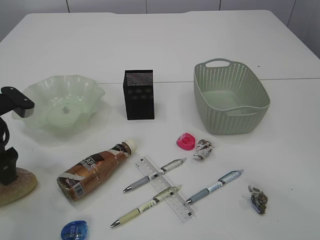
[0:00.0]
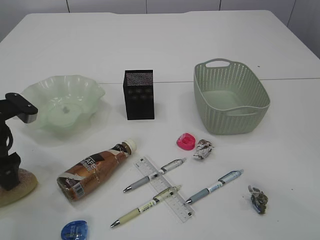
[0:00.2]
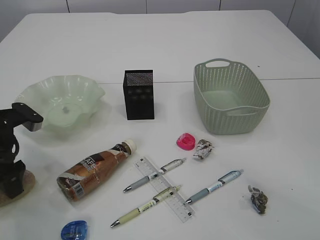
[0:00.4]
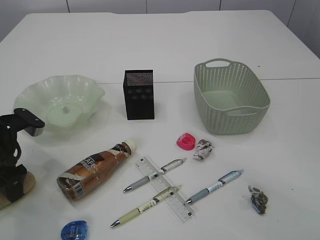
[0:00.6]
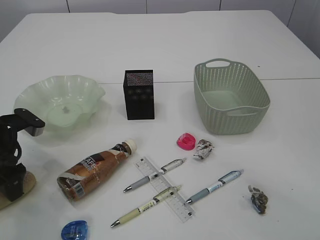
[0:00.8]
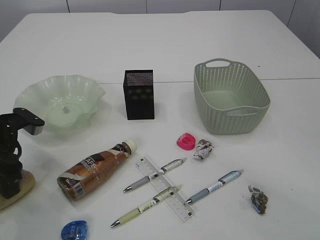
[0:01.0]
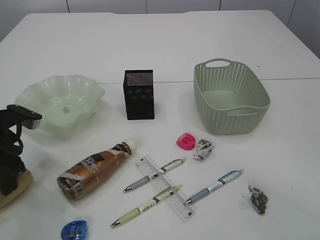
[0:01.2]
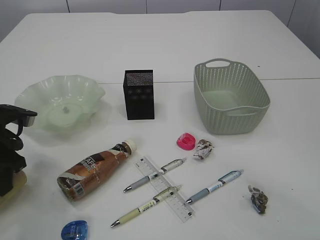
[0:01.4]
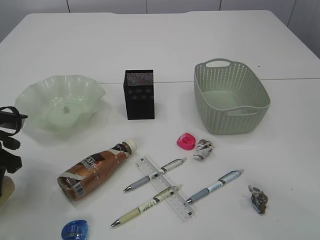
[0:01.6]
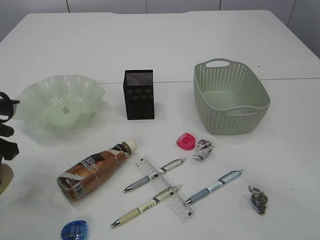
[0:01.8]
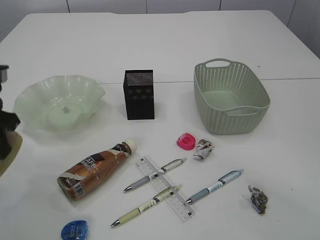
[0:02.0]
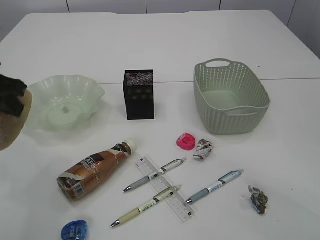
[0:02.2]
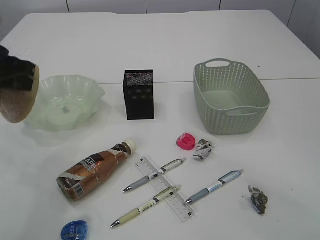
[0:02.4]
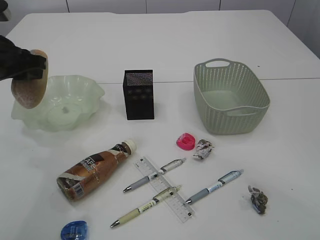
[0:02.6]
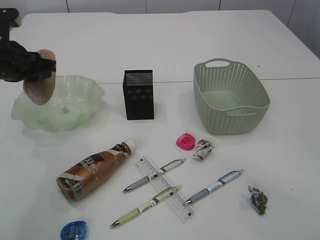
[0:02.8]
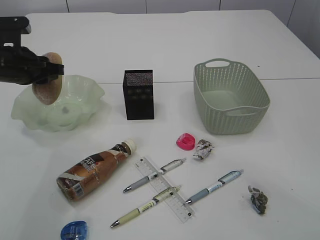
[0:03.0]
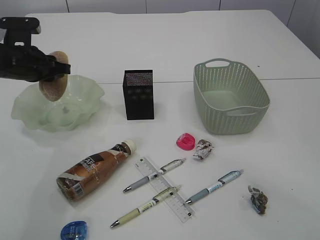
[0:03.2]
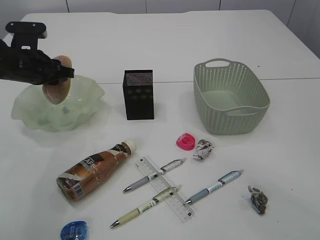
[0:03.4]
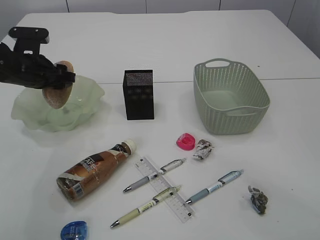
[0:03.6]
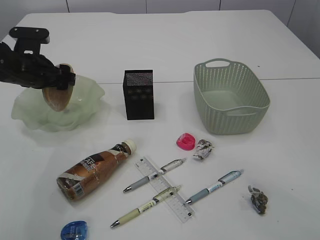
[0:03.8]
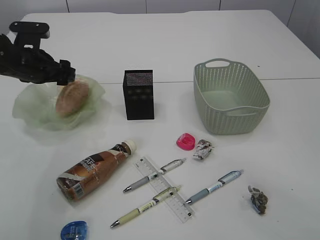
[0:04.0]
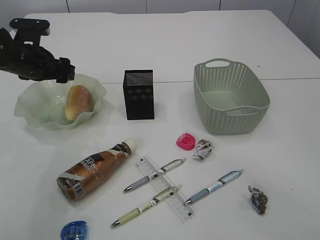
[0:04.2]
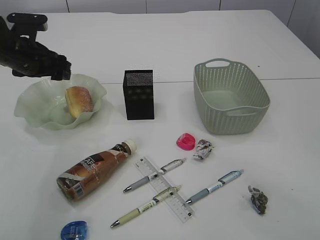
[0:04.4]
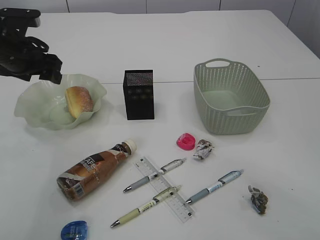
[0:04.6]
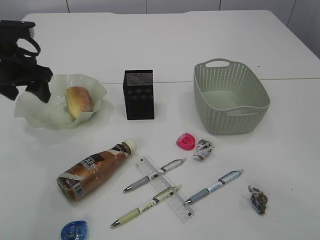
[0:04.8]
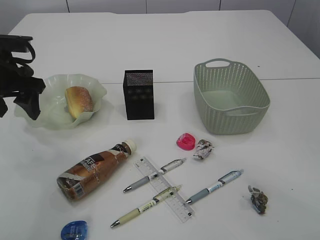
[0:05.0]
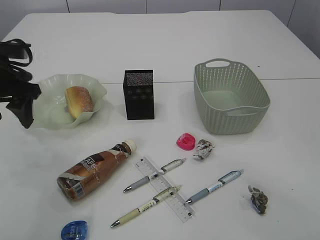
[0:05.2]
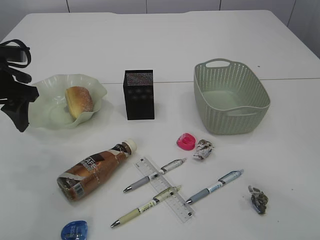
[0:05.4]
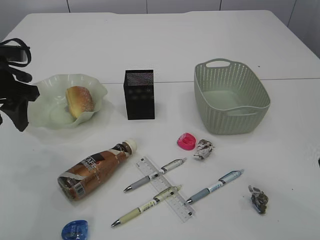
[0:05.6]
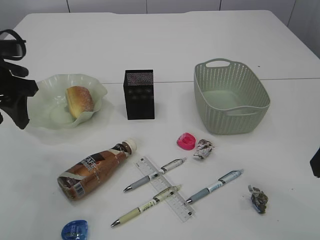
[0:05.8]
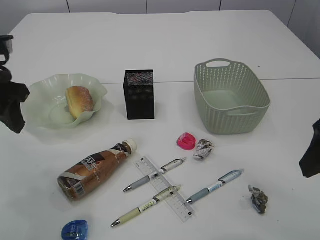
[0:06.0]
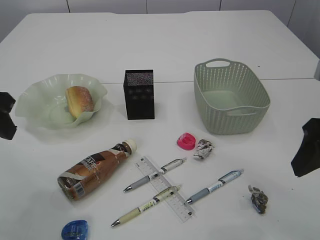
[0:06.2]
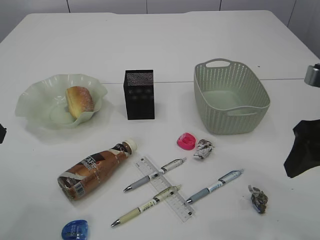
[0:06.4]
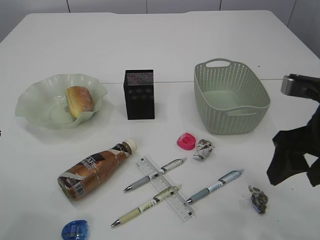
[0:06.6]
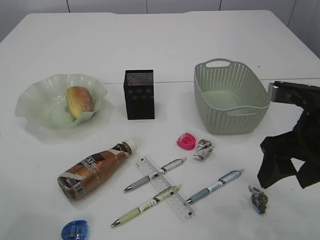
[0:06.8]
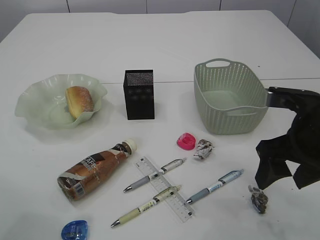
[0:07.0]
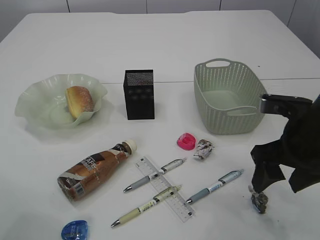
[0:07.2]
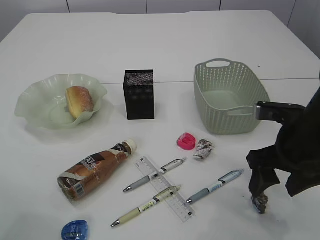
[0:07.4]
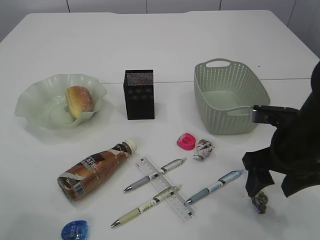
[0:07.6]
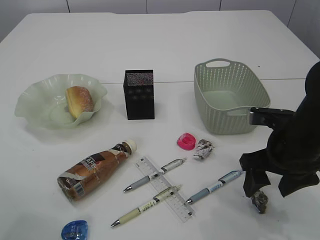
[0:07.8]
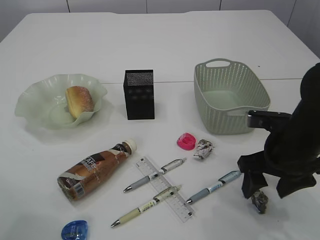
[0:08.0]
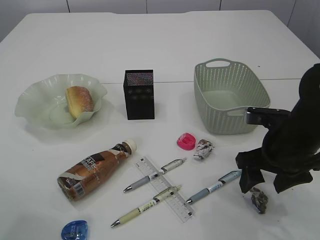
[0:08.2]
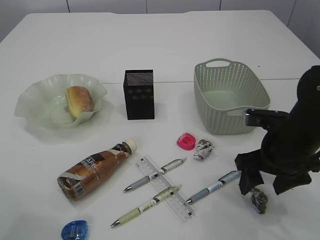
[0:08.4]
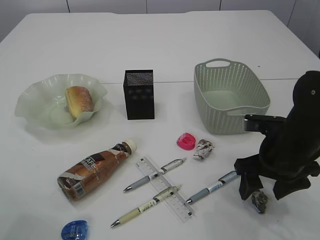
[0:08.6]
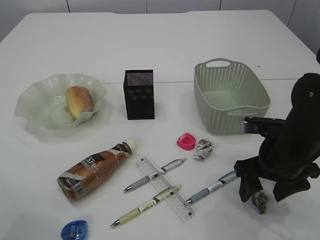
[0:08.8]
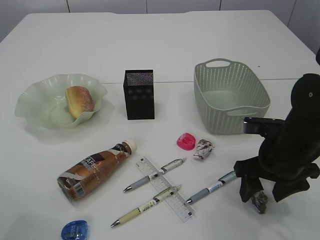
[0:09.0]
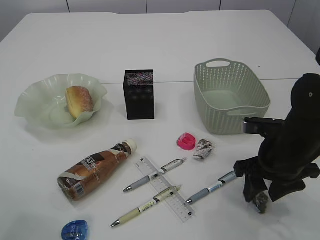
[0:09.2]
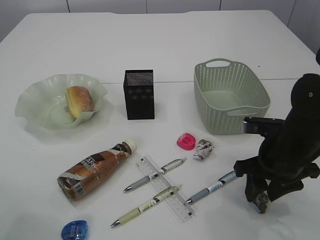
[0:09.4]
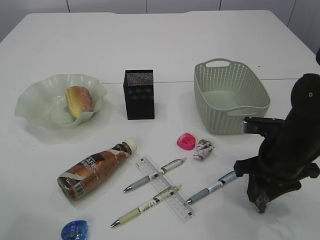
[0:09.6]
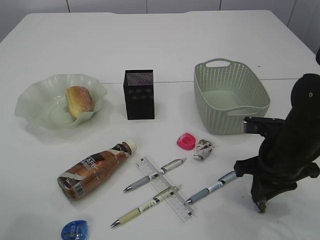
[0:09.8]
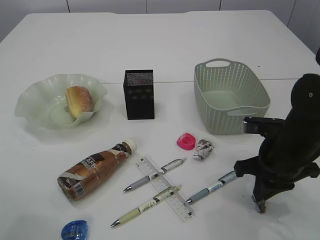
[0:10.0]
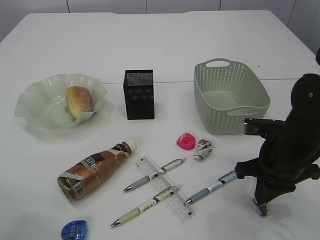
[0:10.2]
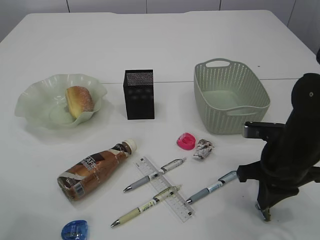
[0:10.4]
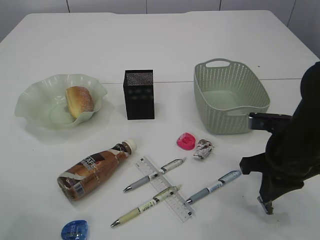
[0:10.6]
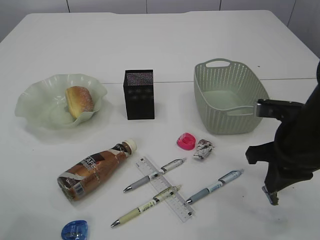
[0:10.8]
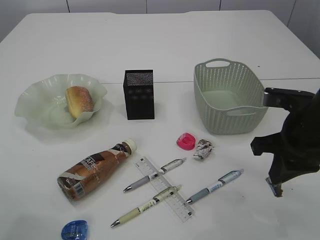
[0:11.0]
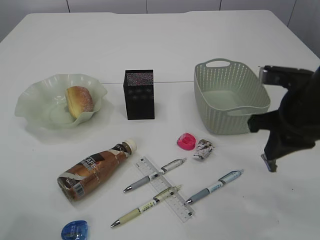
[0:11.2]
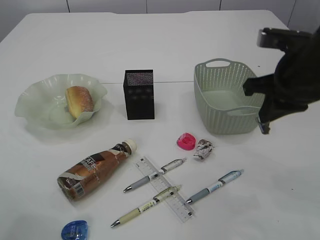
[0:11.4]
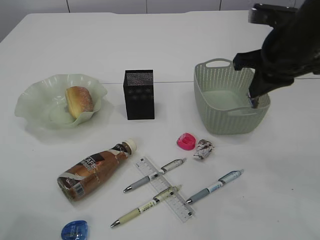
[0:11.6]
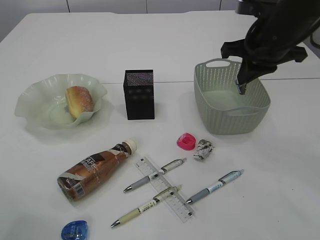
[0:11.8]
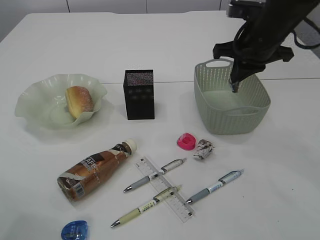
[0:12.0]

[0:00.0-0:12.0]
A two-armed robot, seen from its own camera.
Step, 0:02.2 to 0:05.4: place the bread in the plate.
Step, 0:05.6 to 0:11.2: Pick up the waste paper.
0:00.0 to 0:01.6: The left gripper closes up.
0:01.6 to 0:03.0: The left gripper goes about 10 cm forward.
0:03.0 to 0:04.4: The left gripper opens its fingers.
0:04.4 to 0:06.0: The left gripper heads backward and upward, covering roughly 15 cm.
0:06.0 to 0:07.6: The right gripper goes approximately 15 cm downward and forward; the left gripper goes roughly 10 cm backward.
0:07.6 to 0:09.0: There are only small adjustments of the grippers.
0:09.0 to 0:10.4: The right gripper closes.
0:10.4 to 0:12.0: The right gripper is displaced upward and forward by some 20 cm.

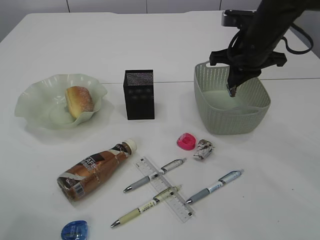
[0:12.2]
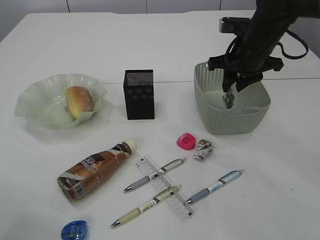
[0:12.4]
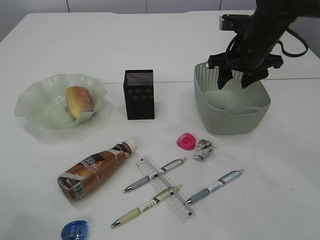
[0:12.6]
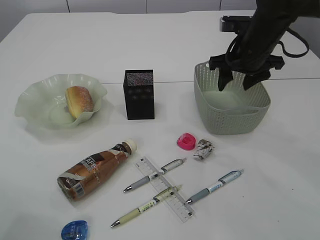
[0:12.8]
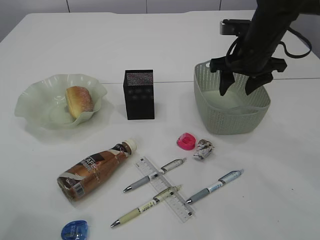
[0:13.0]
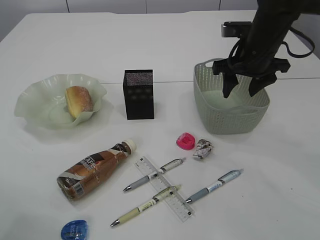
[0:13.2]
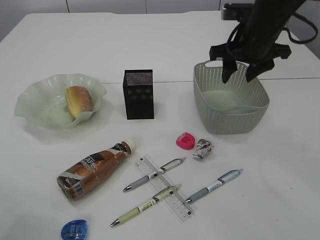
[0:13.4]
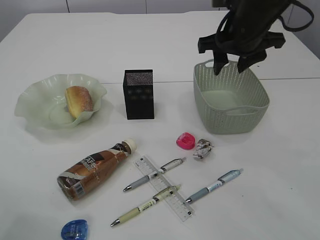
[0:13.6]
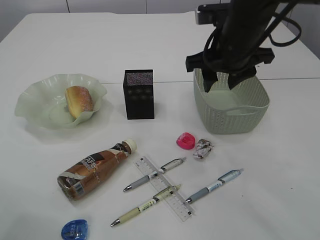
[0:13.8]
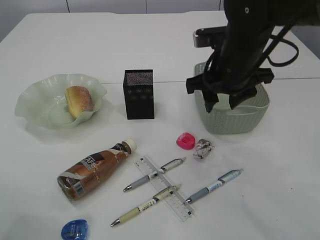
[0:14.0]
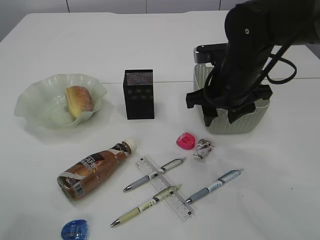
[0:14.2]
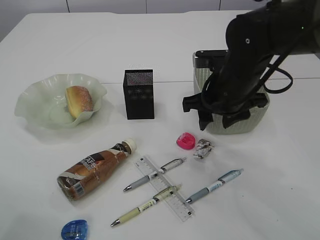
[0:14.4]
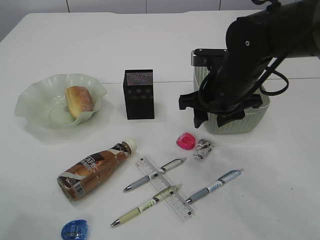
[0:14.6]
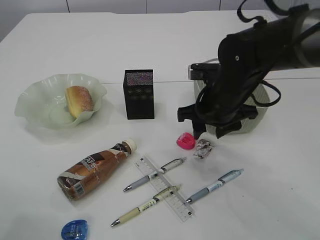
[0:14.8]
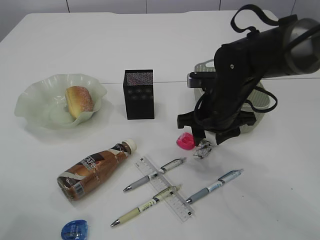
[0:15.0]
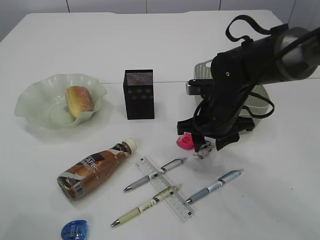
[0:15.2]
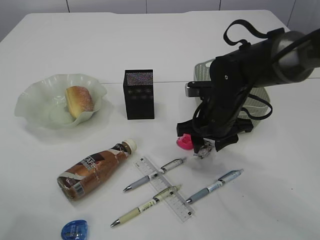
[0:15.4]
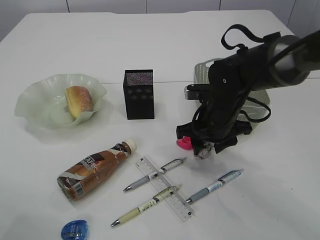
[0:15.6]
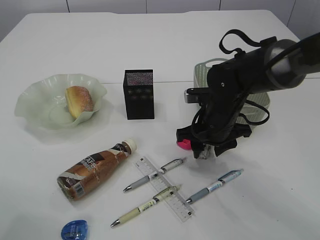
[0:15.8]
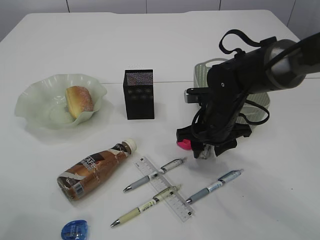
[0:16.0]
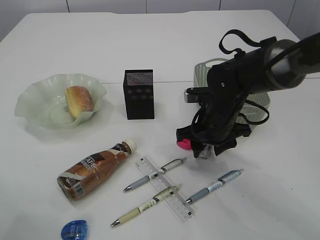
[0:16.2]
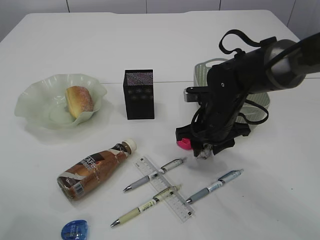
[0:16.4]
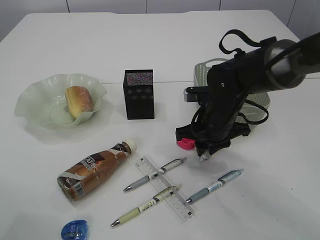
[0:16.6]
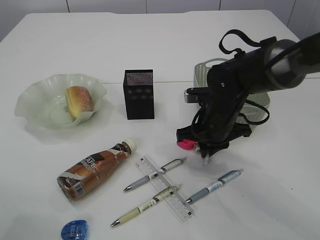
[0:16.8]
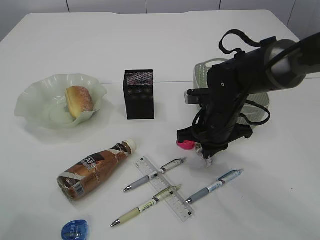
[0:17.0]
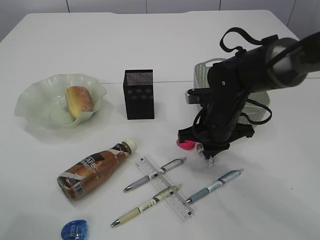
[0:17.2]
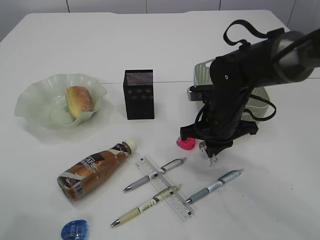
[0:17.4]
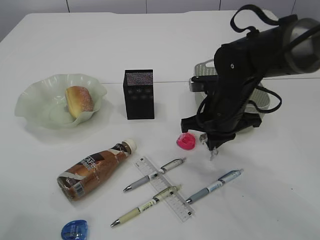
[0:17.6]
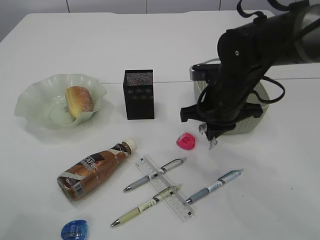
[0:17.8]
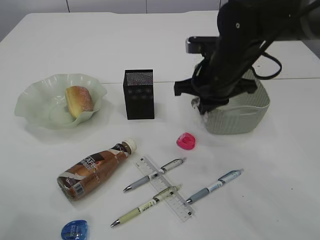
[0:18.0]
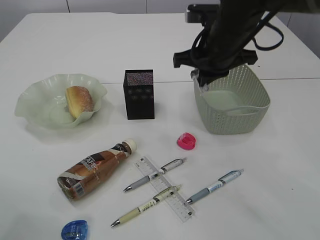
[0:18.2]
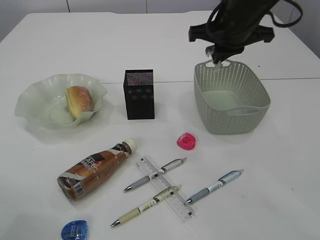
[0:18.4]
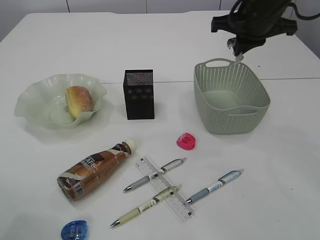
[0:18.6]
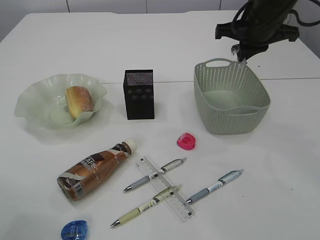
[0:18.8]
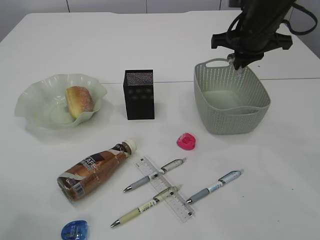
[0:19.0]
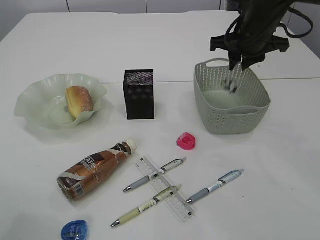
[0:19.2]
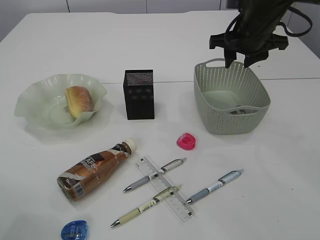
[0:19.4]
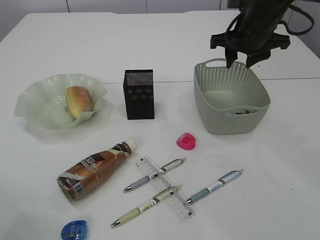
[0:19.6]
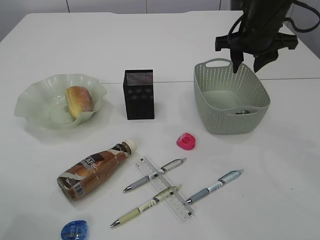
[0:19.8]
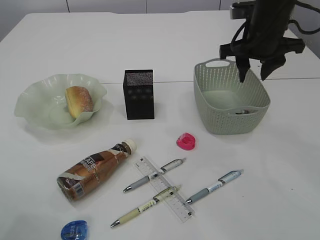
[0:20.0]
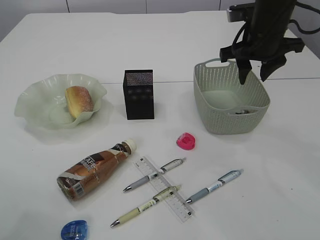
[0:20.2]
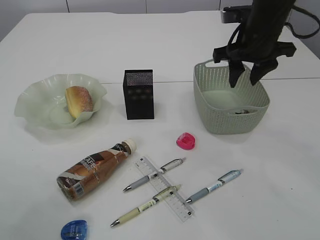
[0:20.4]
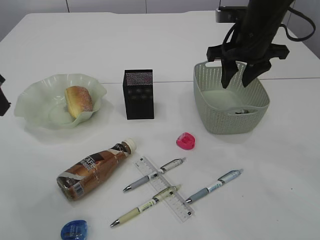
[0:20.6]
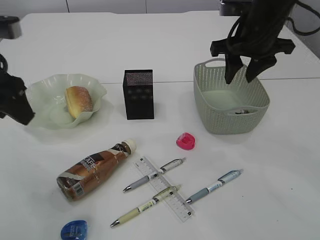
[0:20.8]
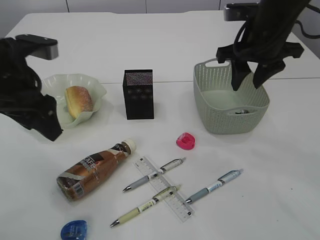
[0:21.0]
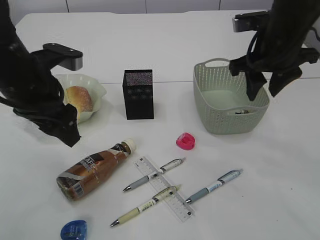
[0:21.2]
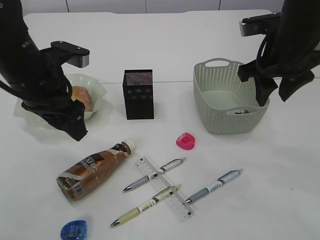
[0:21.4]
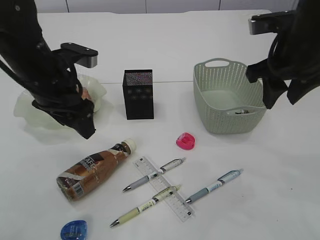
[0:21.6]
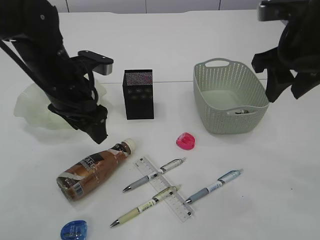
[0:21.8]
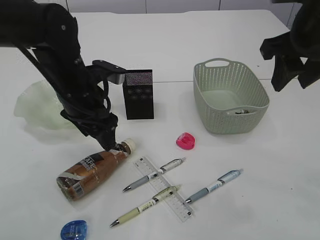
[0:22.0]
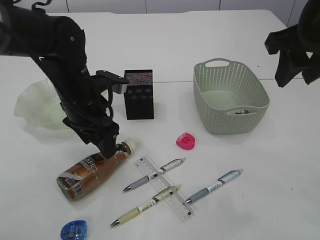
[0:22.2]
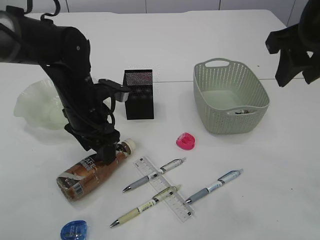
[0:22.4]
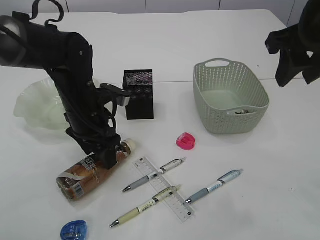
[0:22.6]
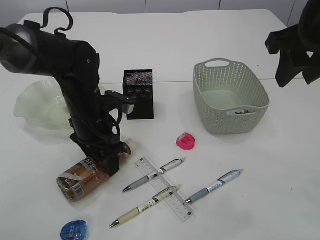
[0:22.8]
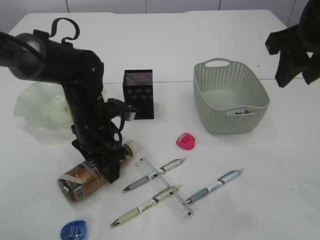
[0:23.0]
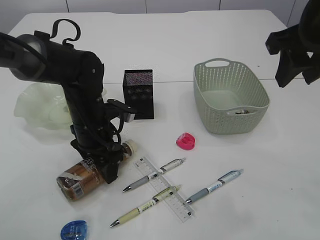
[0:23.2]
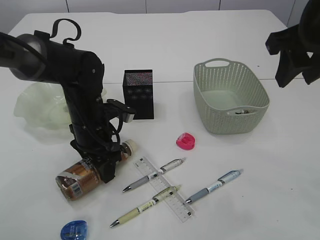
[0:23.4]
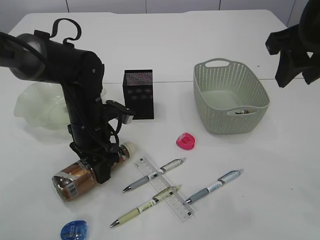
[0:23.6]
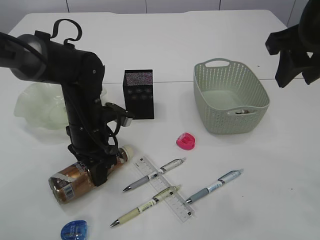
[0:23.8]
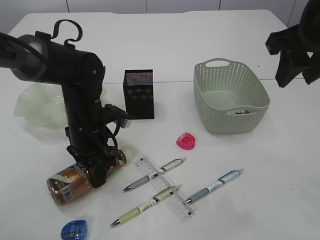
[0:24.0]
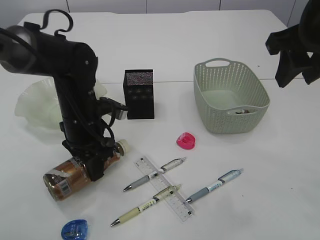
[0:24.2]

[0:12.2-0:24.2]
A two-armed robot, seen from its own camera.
Step, 0:12.2 to 0:13.4: Place the waste paper in the basket.
Step, 0:13.6 to 0:18.0: Pick up the waste paper.
Step, 0:18.2 to 0:20.4: Place the waste paper in the basket.
0:12.2 to 0:13.8: The right gripper shifts about 5 cm to the left, and opens up.
0:13.8 to 0:15.2: The right gripper goes some 10 cm downward.
0:15.2 to 0:16.6: There are only small adjustments of the grippers.
0:16.6 to 0:18.2: The right gripper travels upward by about 15 cm, and closes its fingers.
0:18.2 to 0:19.8: The right gripper goes some 10 cm to the right, and opens.
0:19.8 to 0:21.2: The right gripper goes approximately 5 cm backward, while the left gripper heads to the right and forward, covering about 15 cm, and opens up.
0:21.2 to 0:22.6: The right gripper is displaced backward and upward by about 10 cm; the left gripper heads downward and to the right, covering some 10 cm.
0:22.6 to 0:24.2: The left gripper closes.
